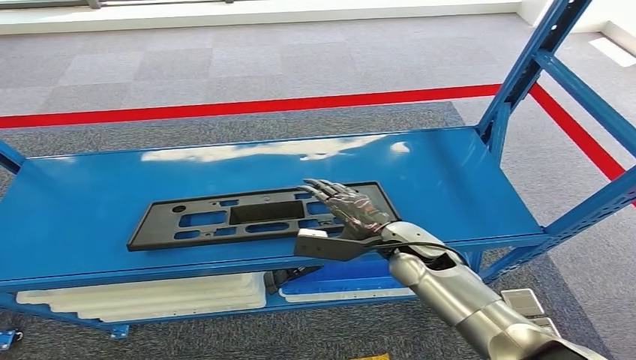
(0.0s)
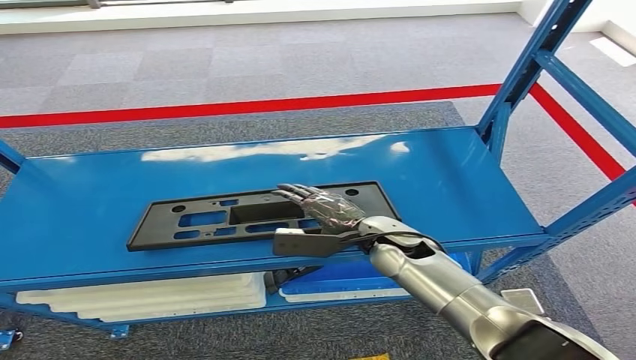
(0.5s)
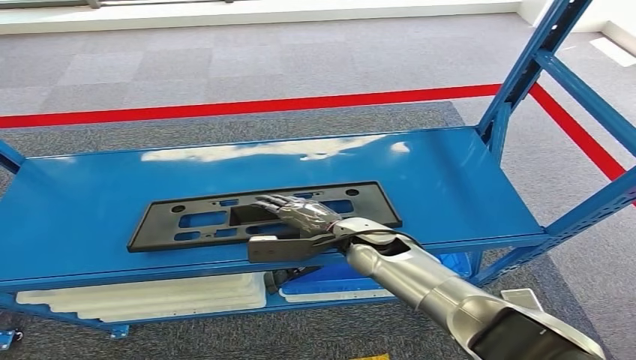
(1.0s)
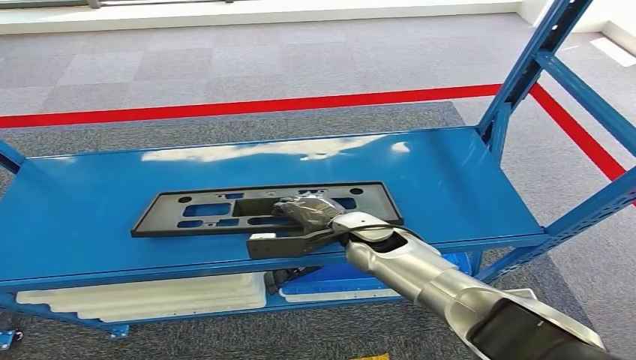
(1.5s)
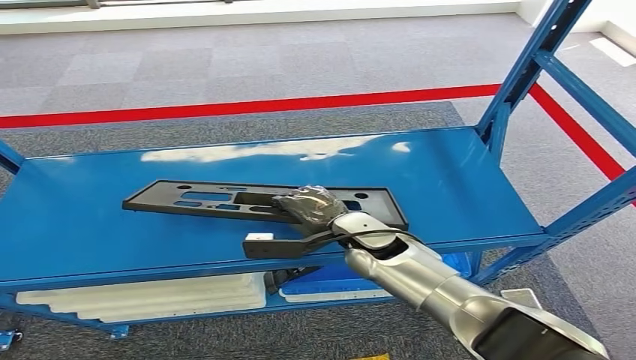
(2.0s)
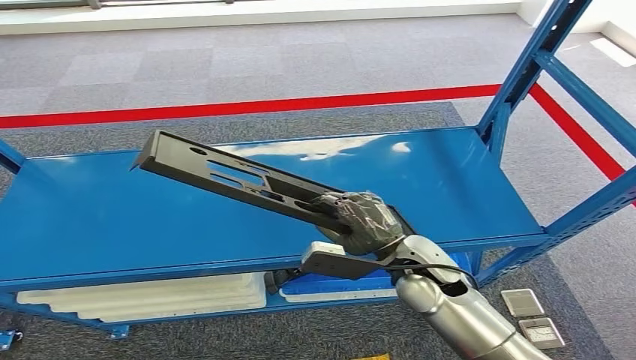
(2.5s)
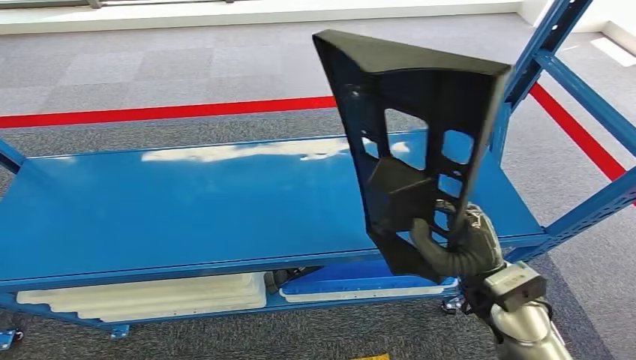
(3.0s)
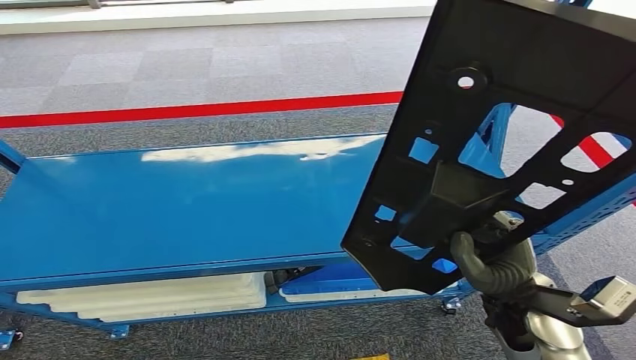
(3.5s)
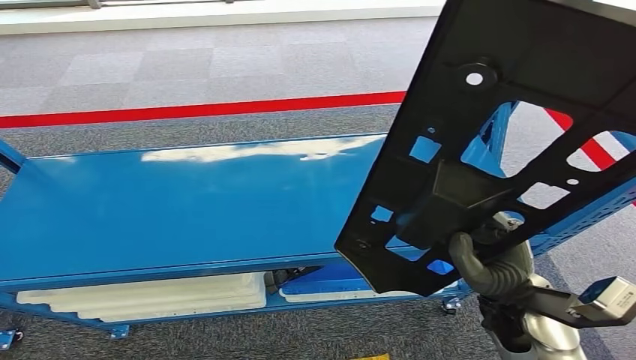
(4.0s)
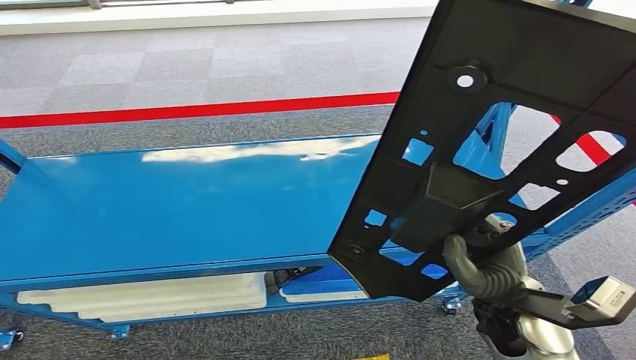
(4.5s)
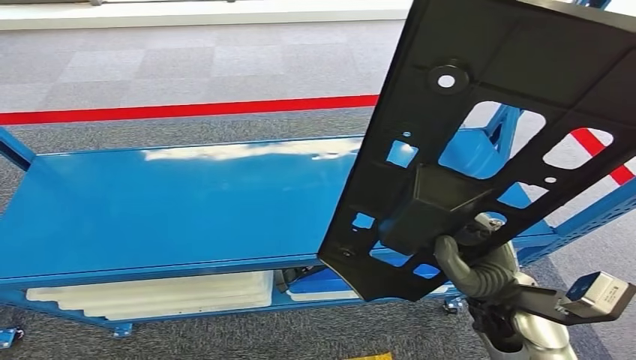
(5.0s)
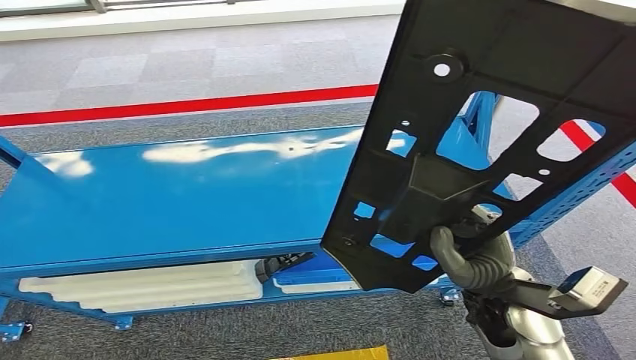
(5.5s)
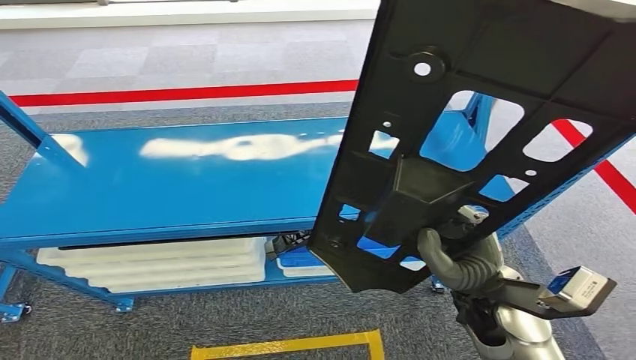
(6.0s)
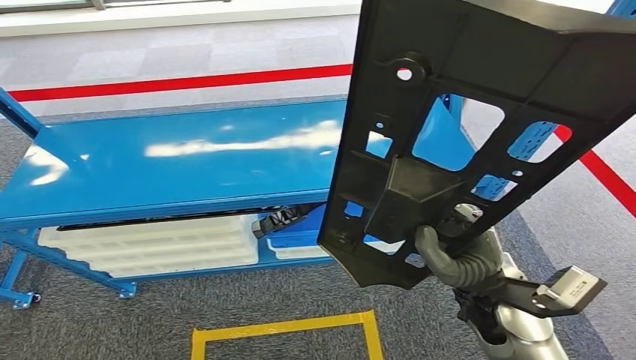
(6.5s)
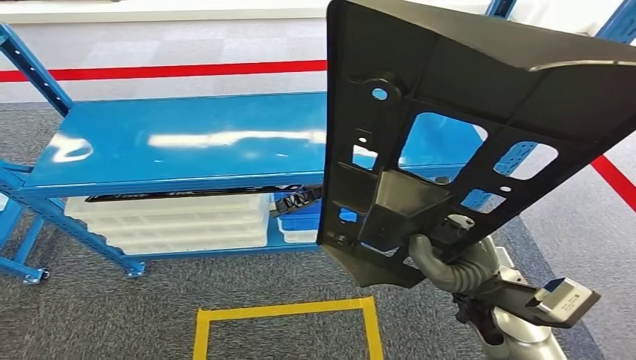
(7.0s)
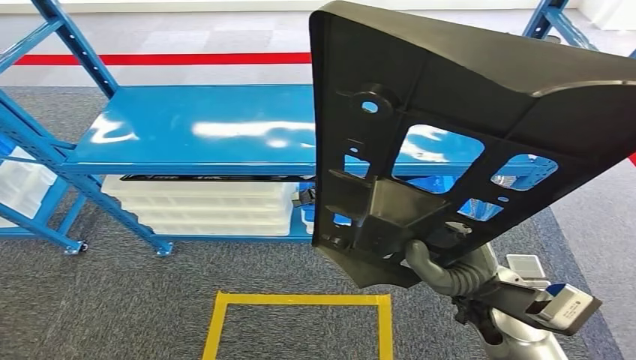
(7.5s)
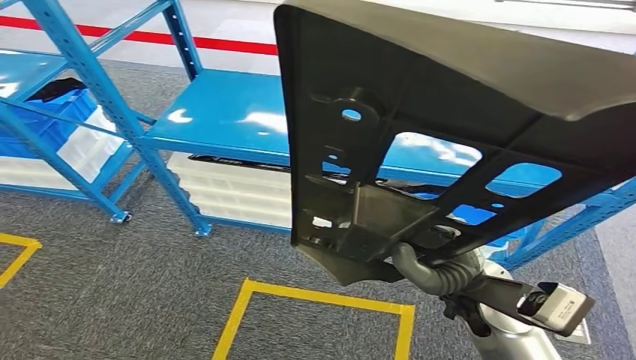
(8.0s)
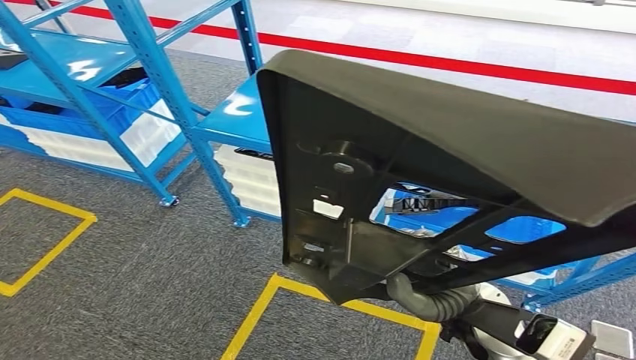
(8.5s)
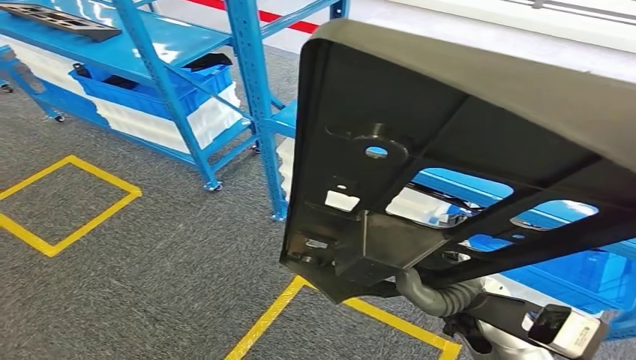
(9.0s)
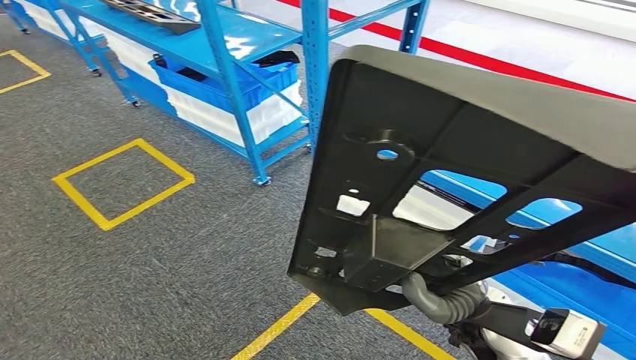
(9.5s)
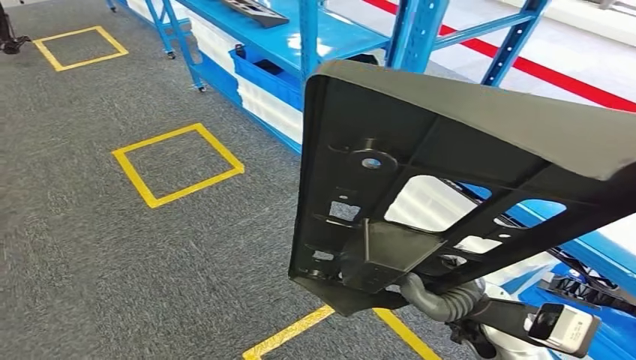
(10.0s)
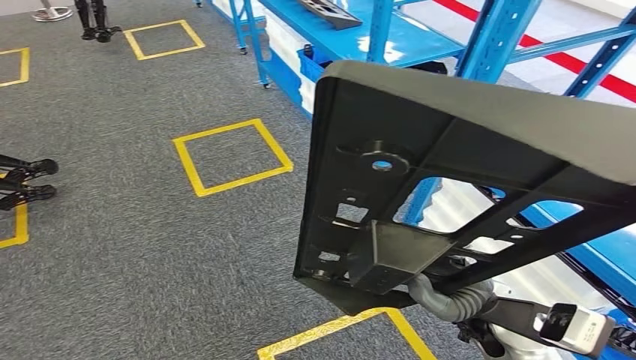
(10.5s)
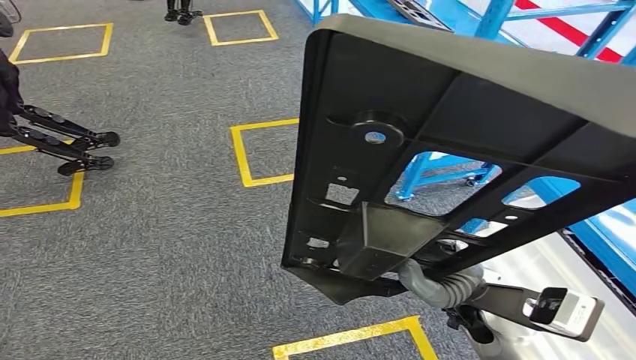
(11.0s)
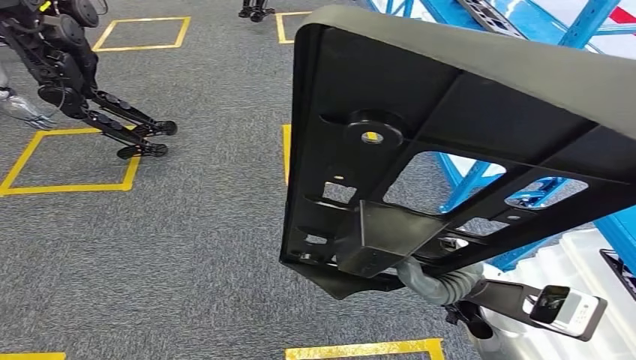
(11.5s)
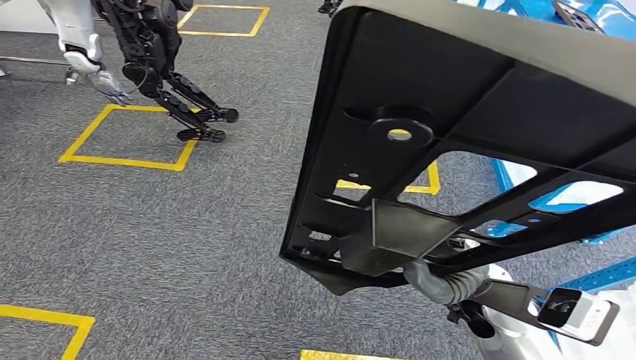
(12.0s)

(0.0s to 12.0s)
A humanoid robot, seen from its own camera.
Step, 0.0s - 2.0s: Pick up the small component from the shelf.
0.0s - 2.0s: The right hand moves to the left, about 5 cm.

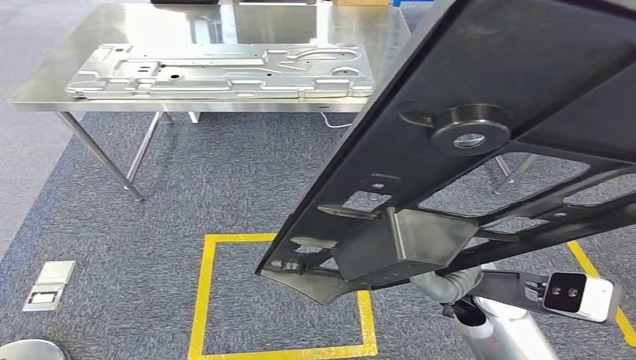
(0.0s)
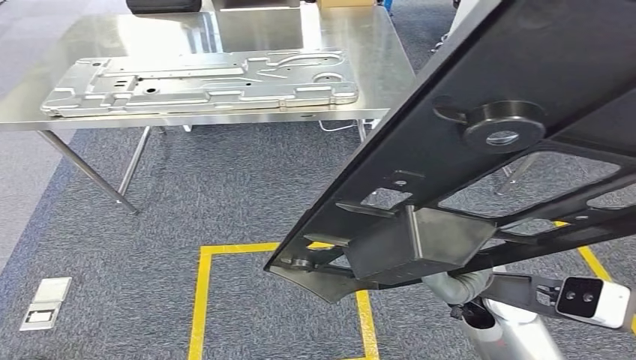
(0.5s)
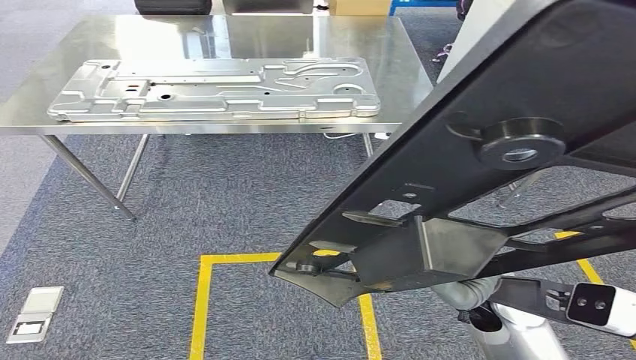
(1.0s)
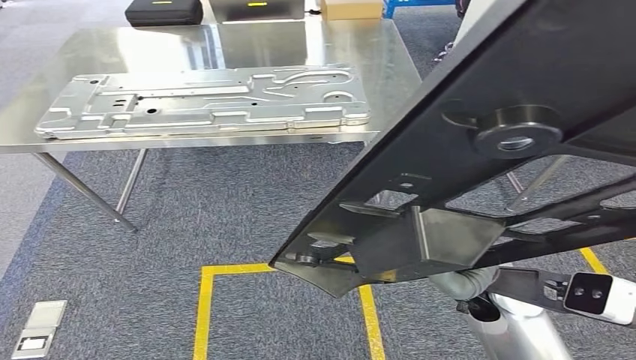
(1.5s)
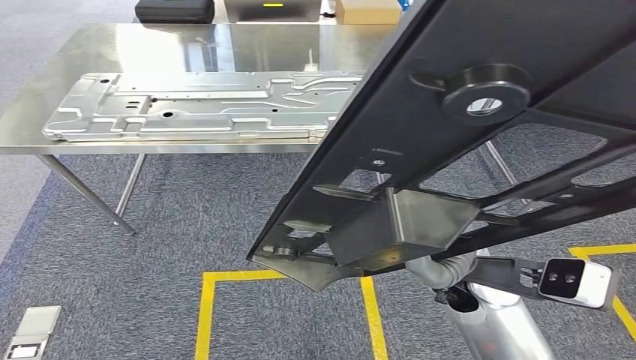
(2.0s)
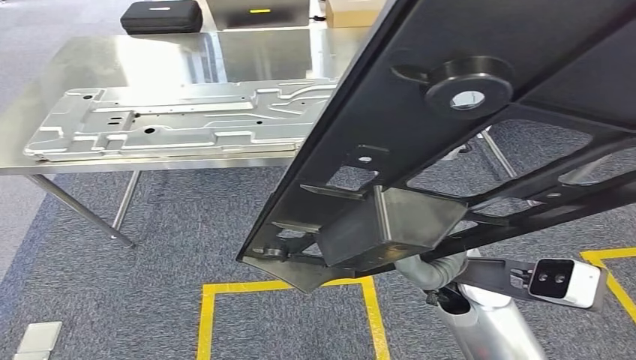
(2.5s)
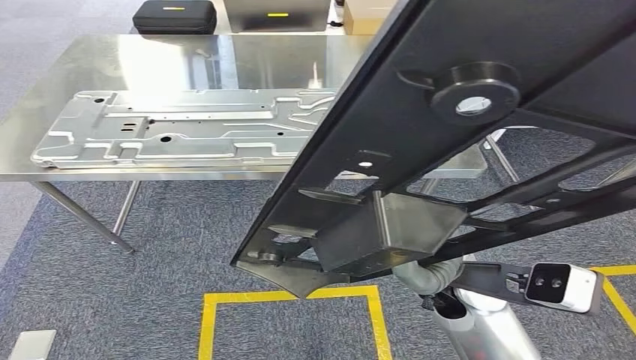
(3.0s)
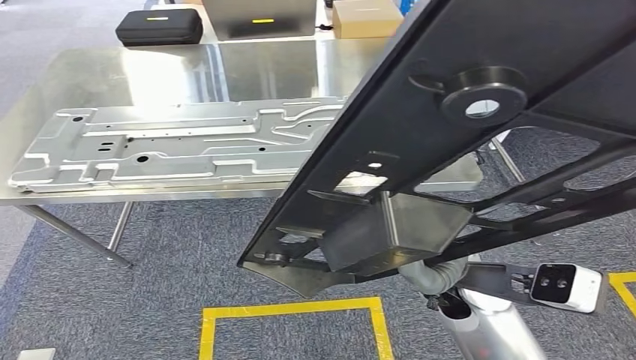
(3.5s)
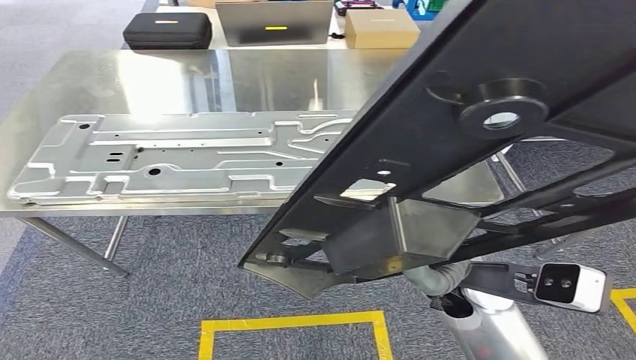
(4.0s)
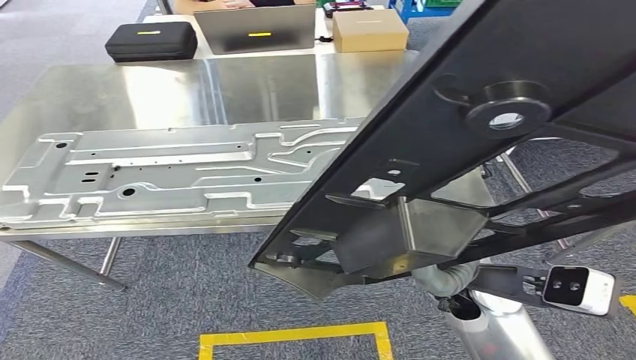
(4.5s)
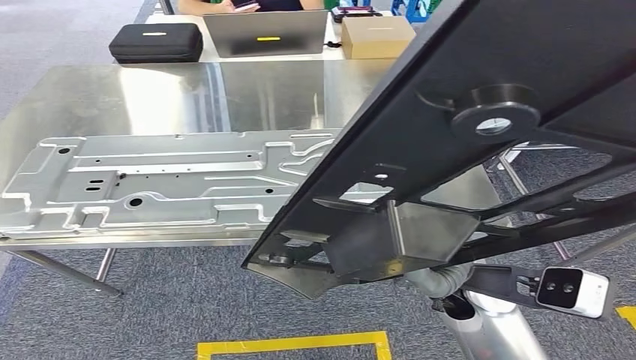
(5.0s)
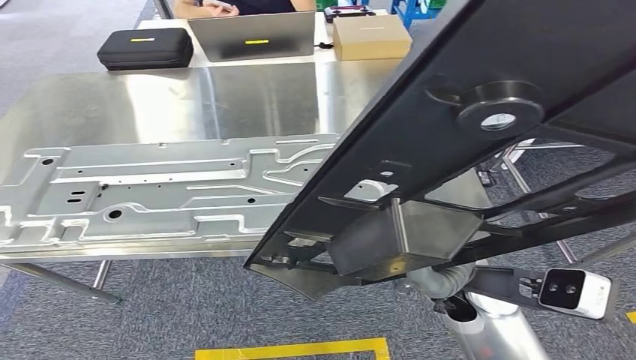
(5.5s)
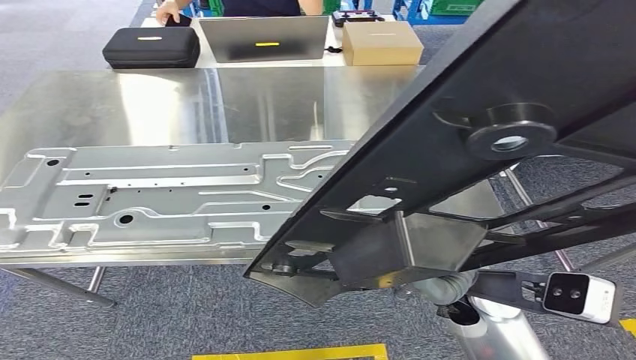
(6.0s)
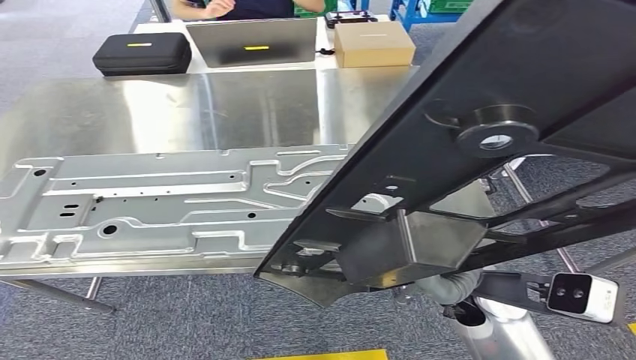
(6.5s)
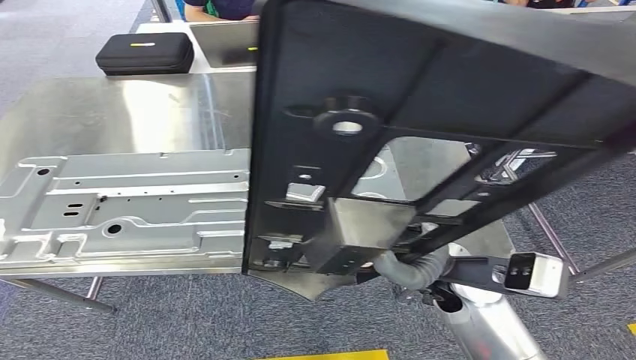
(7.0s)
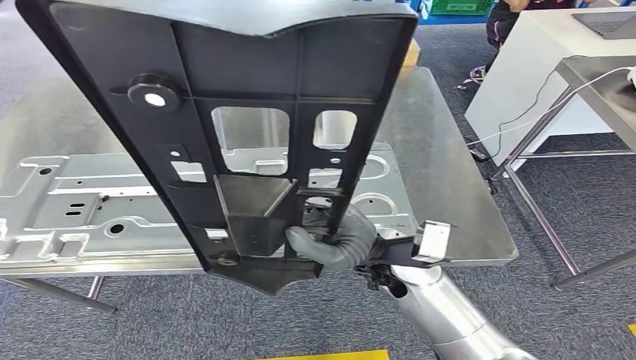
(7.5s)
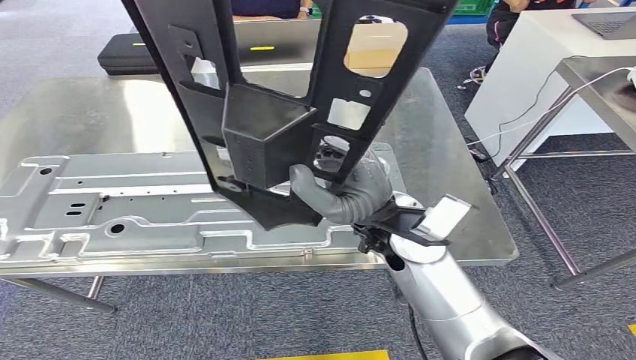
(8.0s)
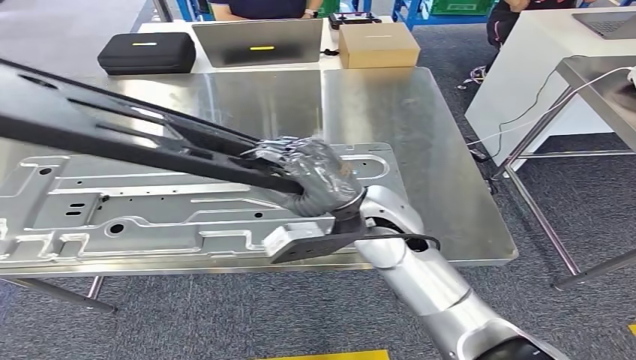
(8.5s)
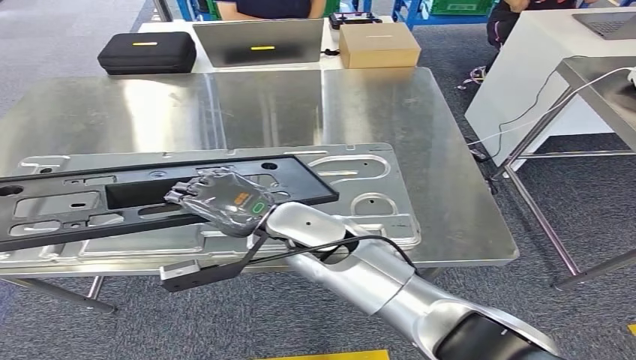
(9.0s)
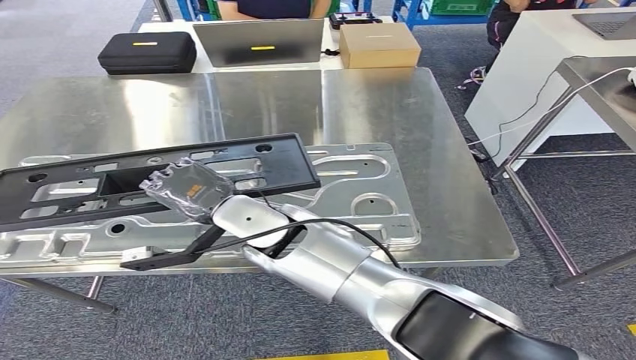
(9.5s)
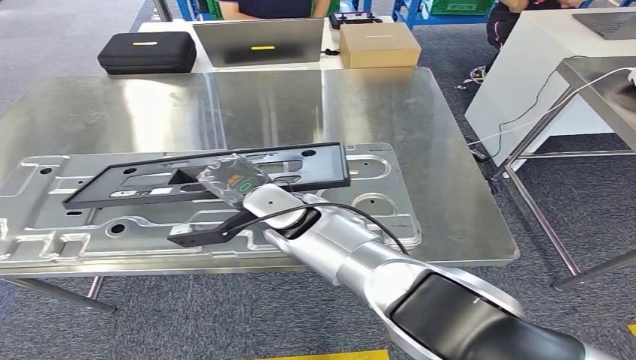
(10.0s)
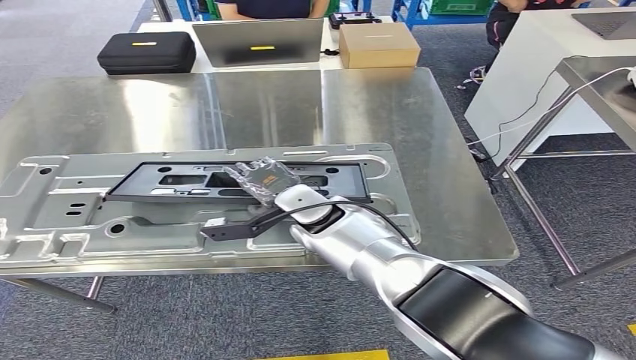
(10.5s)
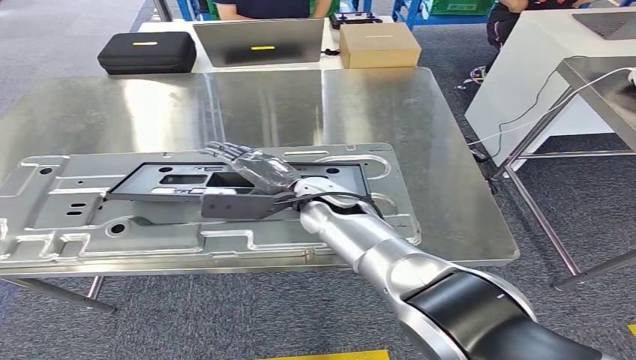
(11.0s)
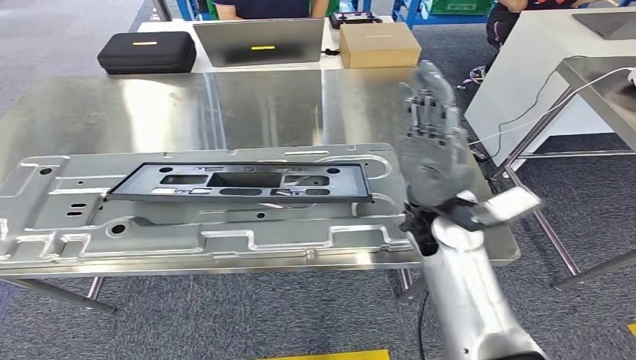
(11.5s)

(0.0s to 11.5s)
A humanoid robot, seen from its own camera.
Step, 0.0s - 7.5s: Move the small component to the workbench.
